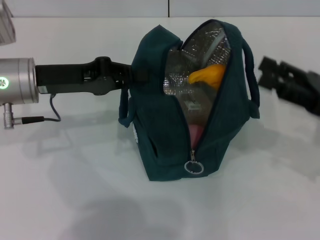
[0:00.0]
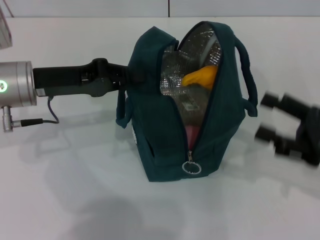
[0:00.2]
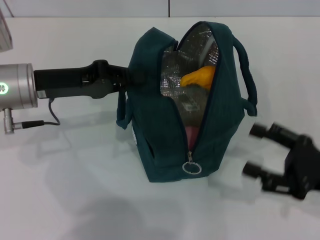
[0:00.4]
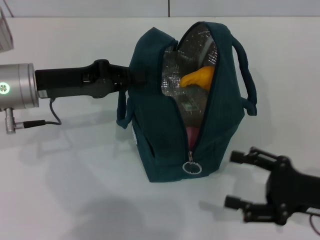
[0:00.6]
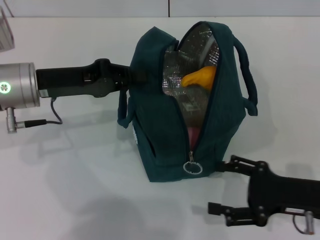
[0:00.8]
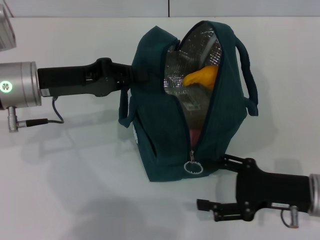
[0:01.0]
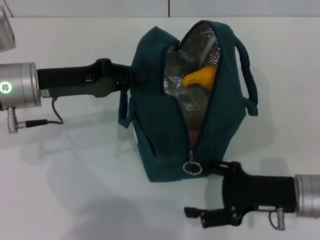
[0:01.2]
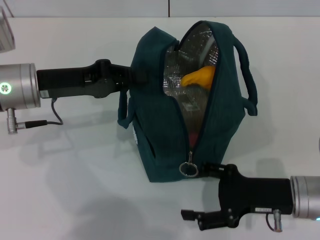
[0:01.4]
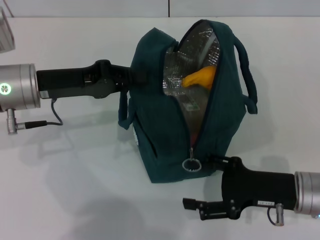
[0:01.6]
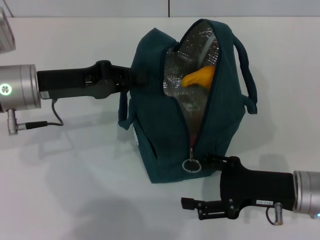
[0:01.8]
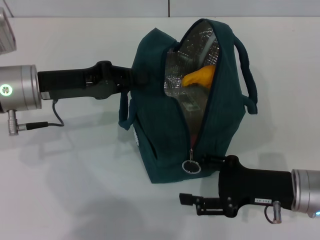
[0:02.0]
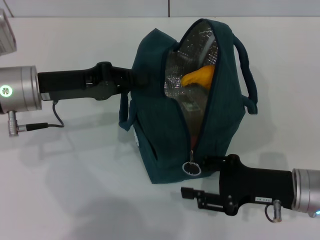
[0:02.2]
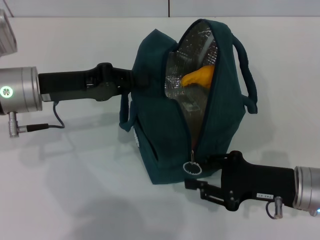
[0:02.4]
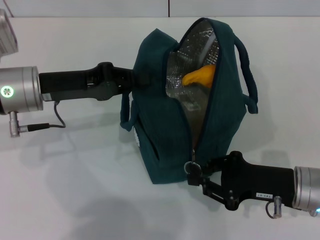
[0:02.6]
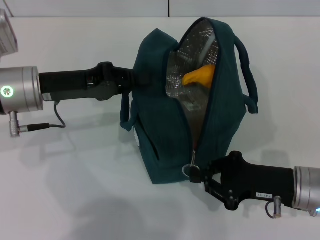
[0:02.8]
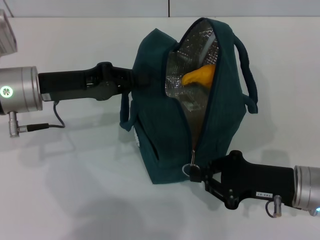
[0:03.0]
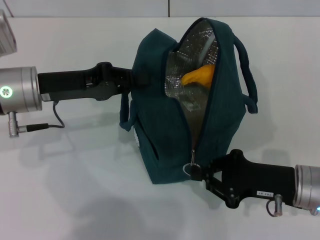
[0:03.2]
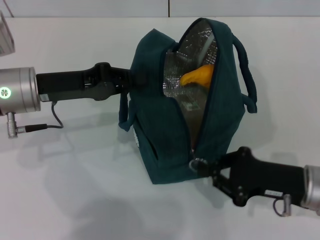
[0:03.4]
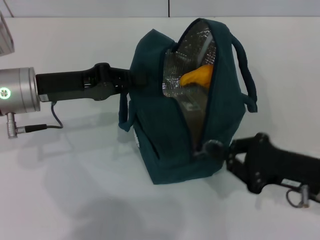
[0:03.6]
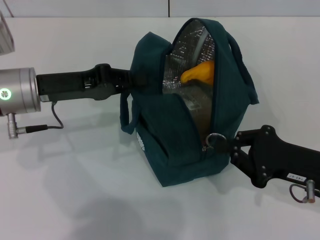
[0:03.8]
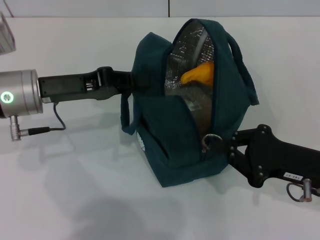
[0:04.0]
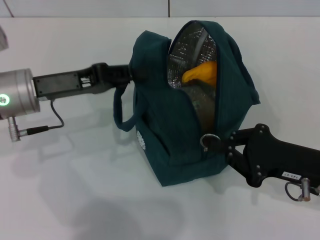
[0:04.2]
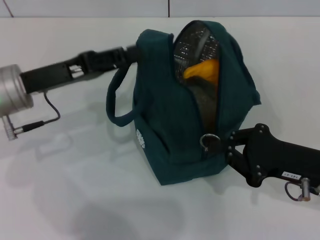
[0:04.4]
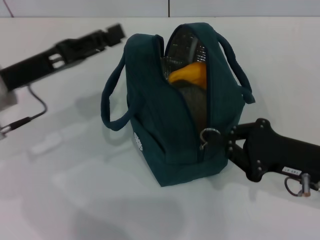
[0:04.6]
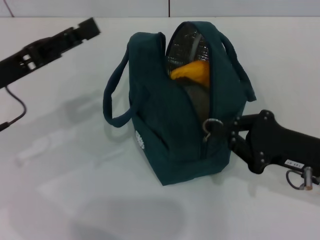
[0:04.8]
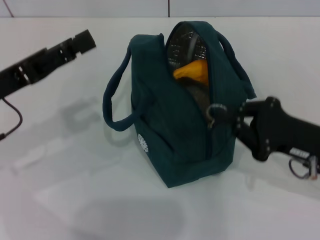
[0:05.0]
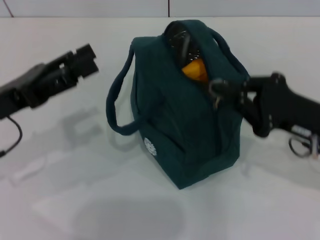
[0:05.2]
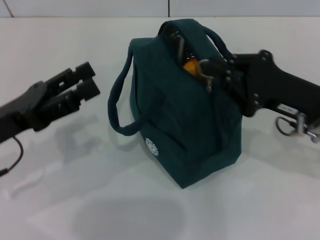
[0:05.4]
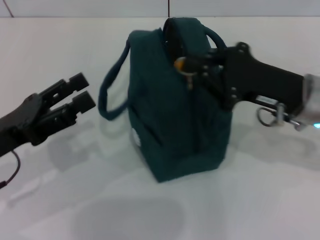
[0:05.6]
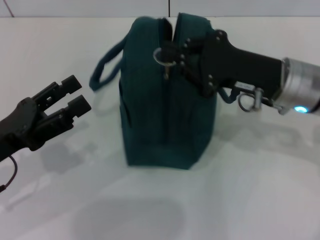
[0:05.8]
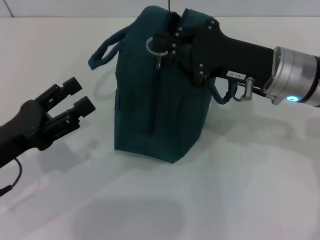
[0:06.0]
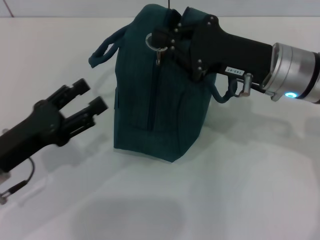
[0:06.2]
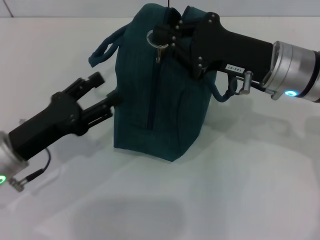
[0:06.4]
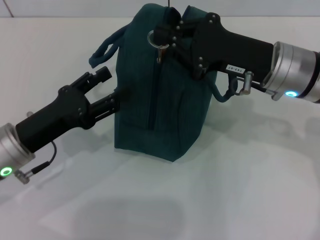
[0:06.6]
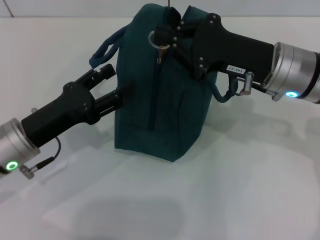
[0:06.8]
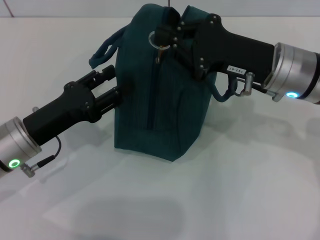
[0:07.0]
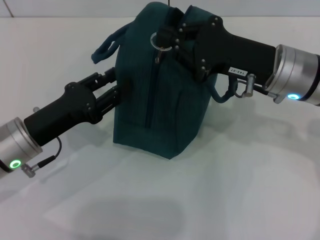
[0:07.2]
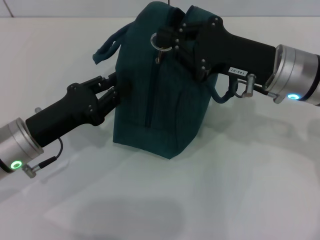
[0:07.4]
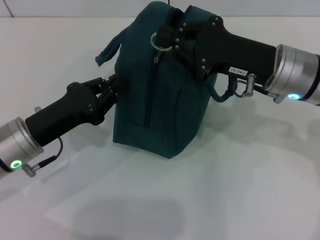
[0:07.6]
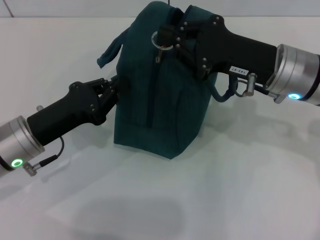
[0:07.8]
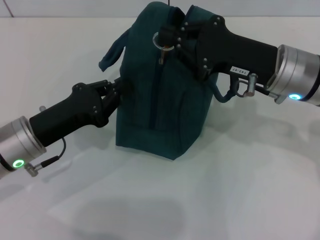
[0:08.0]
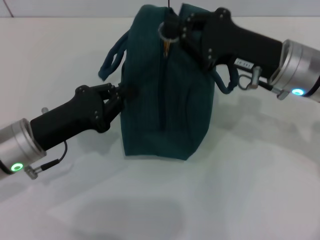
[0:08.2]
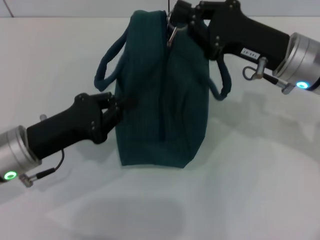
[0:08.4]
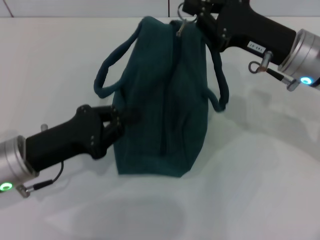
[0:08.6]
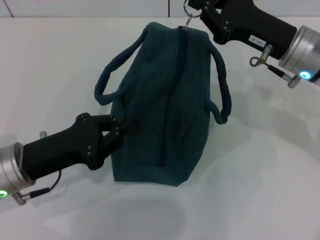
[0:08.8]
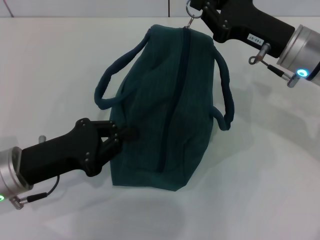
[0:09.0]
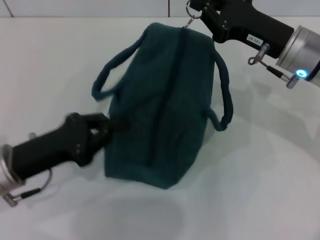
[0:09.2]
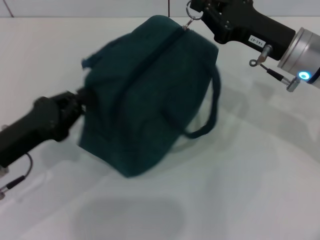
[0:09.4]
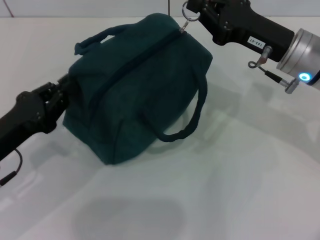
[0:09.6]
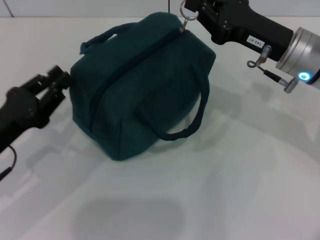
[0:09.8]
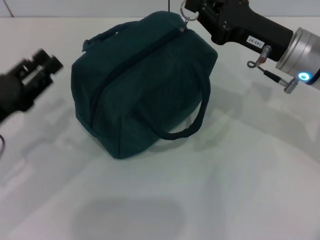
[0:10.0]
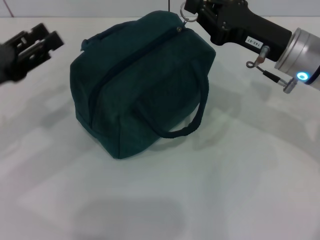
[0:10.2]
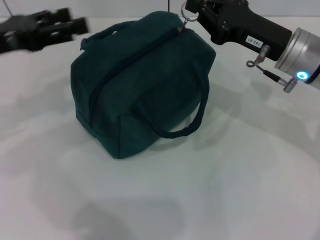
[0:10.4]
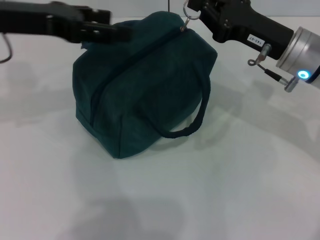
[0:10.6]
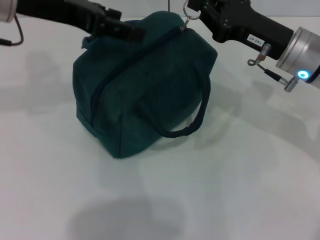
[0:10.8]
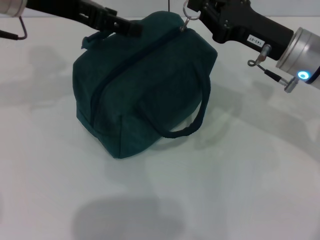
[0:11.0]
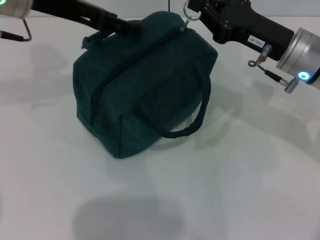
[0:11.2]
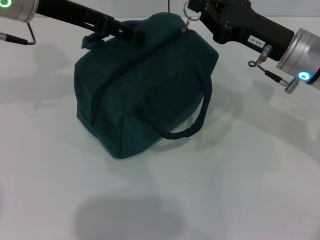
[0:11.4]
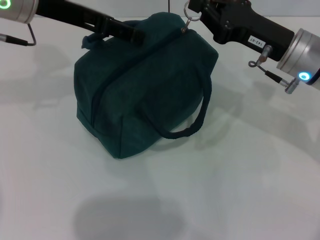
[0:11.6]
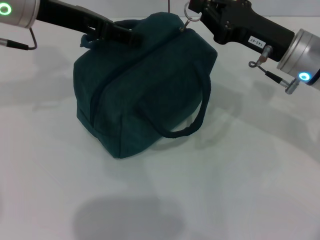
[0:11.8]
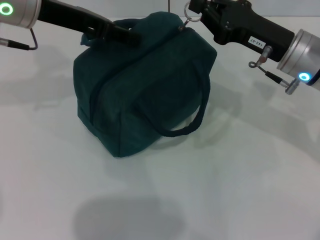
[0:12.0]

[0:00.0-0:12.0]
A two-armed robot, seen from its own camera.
Step, 0:00.0 to 0:04.4: Hold the lunch bag with your left hand.
0:00.0 to 0:01.6: The right gripper moves downward and to the left, about 10 cm.
0:01.6 to 0:03.0: The right gripper closes its fingers.
0:04.4 to 0:06.0: The left gripper shifts approximately 10 cm backward, and opens its fingers, while the right gripper moves forward, upward and to the left, about 15 cm.
0:06.0 to 0:07.6: The left gripper goes roughly 5 cm forward, and closes up.
0:09.0 to 0:10.4: The left gripper travels upward, forward and to the left by roughly 15 cm, and opens its fingers.
0:10.4 to 0:12.0: The left gripper heads to the right, forward and upward, covering some 15 cm.

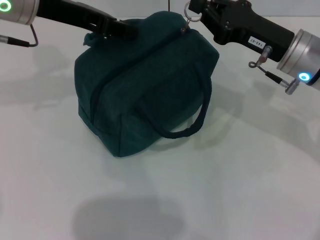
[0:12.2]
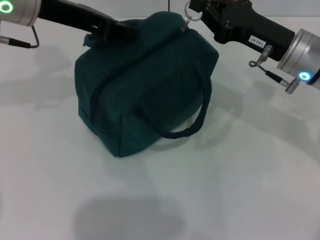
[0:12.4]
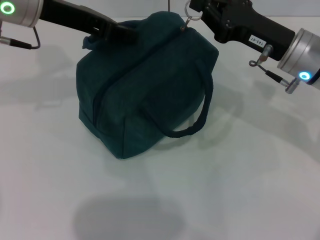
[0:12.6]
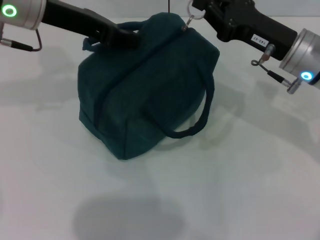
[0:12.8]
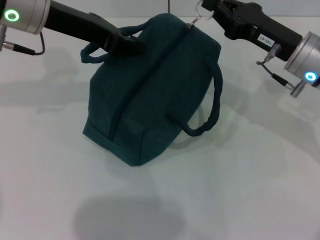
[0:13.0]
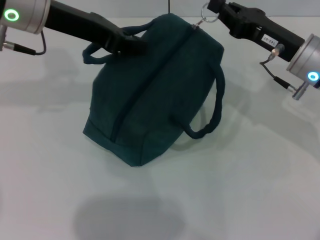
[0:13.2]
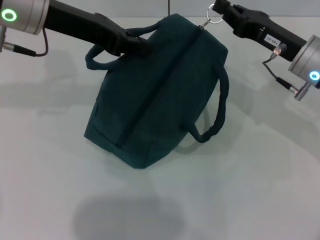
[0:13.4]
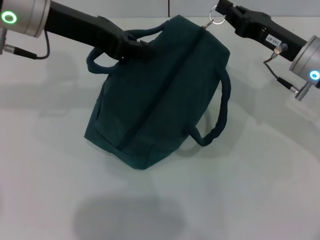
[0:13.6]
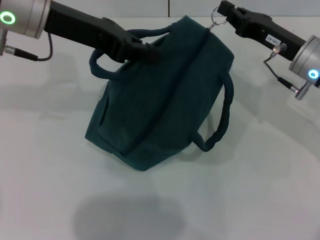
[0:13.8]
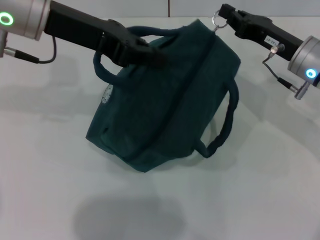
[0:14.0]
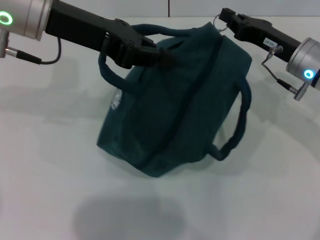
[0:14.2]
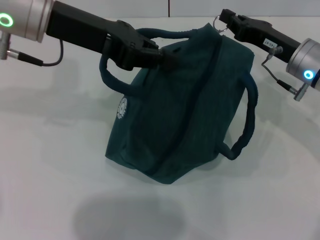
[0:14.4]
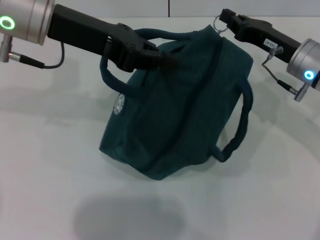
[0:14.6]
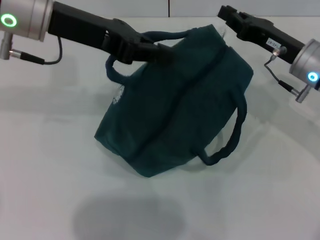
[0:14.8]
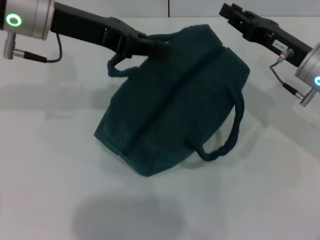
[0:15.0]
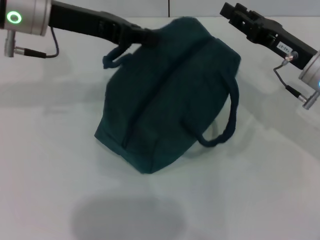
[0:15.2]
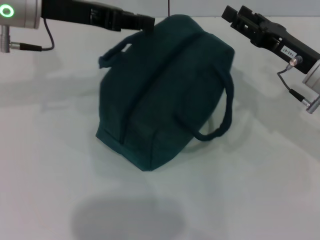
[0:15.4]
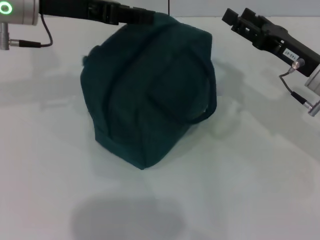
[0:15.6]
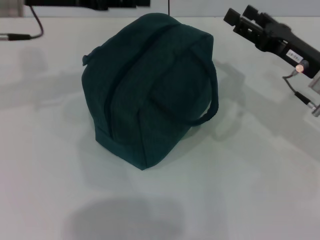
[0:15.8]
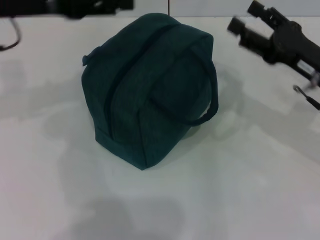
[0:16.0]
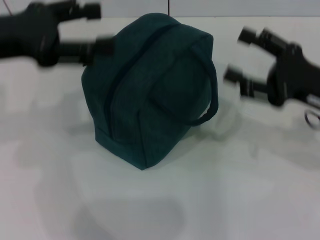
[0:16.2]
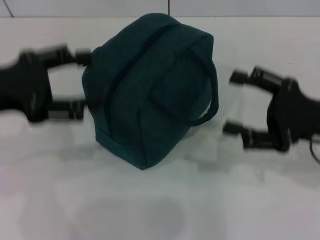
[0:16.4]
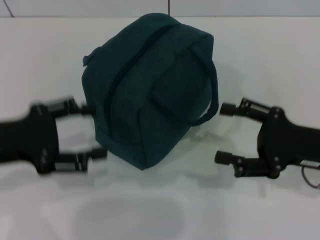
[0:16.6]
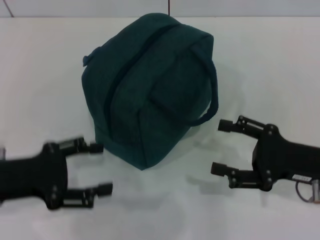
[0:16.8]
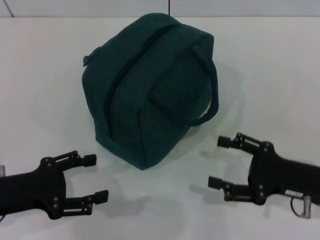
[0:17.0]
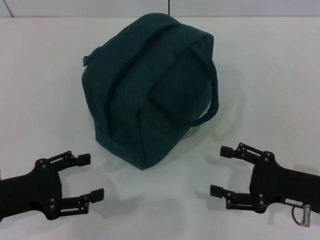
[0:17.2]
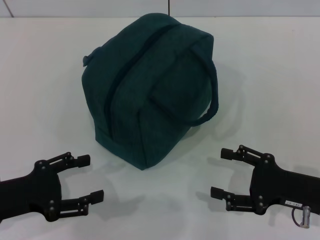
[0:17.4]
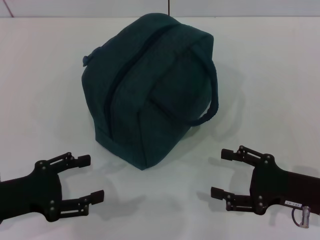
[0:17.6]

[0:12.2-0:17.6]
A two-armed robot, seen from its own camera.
Step, 0:12.2 to 0:14.8: Zip up the lunch bag with your right hand.
Step, 0:15.0 to 0:15.4: Hold the lunch bag with your left hand.
0:12.2 to 0:13.6: The grippers move only a little.
0:13.6 to 0:15.0: The grippers make only small movements.
0:15.0 to 0:16.2: The right gripper is displaced backward by approximately 5 cm, and opens up, while the left gripper is displaced to the left and backward by some 10 cm, and opens.
0:16.2 to 0:17.6: The right gripper moves downward and backward, about 10 cm. Meanwhile the left gripper goes about 20 cm downward and backward.

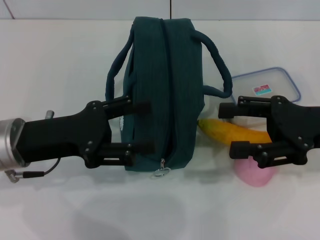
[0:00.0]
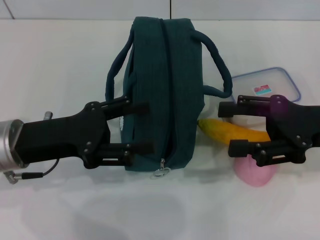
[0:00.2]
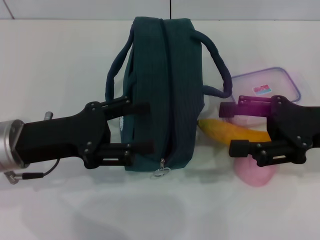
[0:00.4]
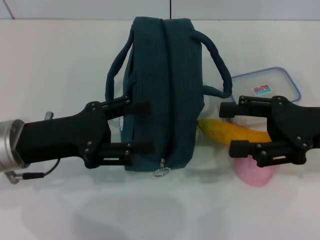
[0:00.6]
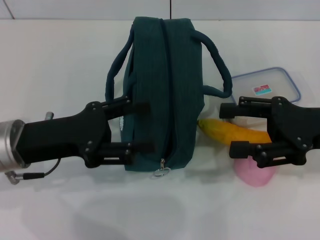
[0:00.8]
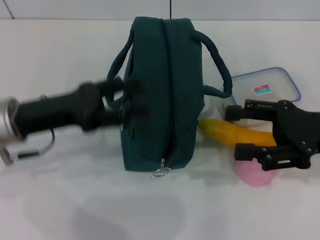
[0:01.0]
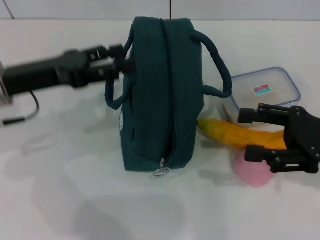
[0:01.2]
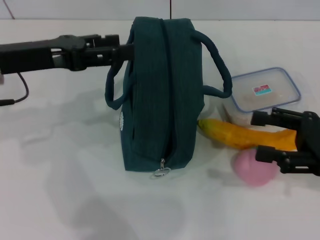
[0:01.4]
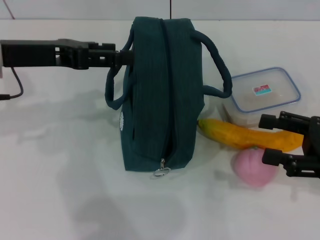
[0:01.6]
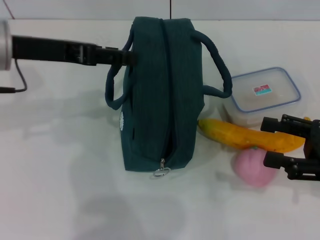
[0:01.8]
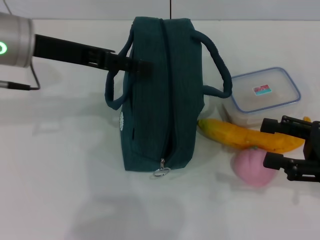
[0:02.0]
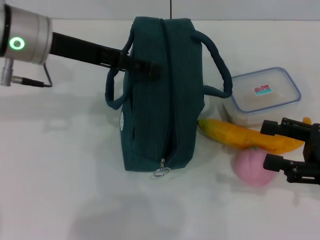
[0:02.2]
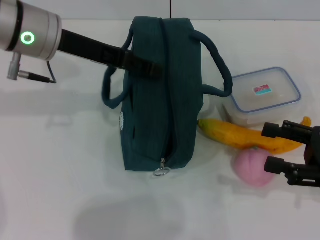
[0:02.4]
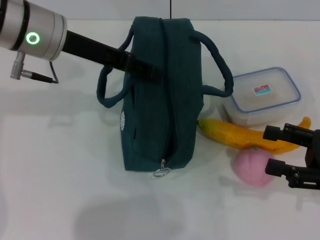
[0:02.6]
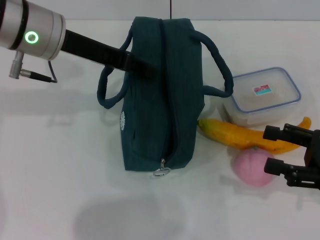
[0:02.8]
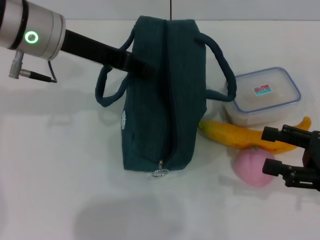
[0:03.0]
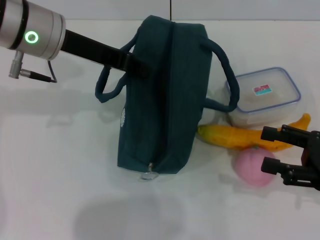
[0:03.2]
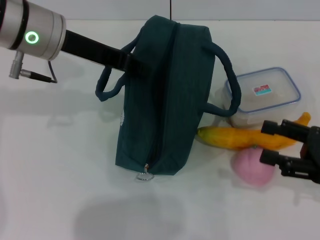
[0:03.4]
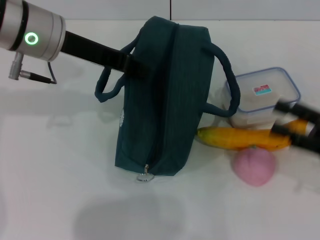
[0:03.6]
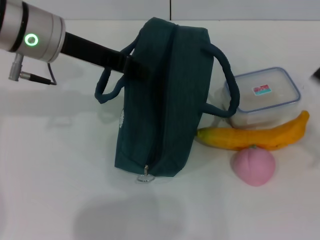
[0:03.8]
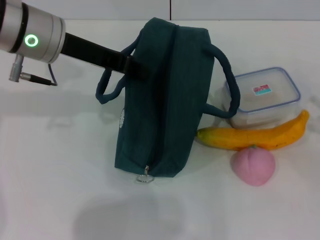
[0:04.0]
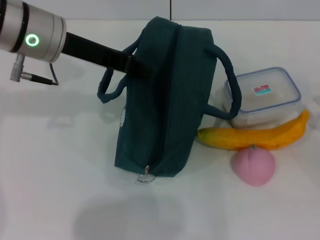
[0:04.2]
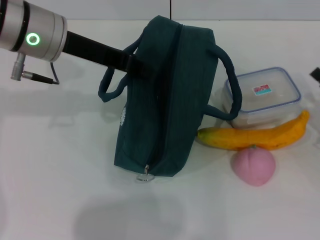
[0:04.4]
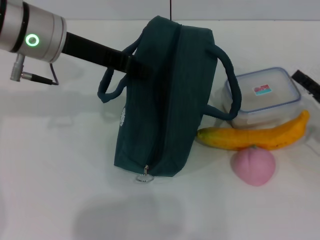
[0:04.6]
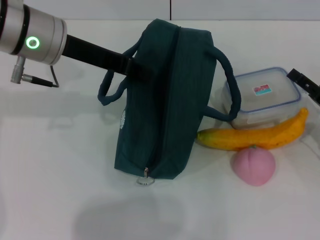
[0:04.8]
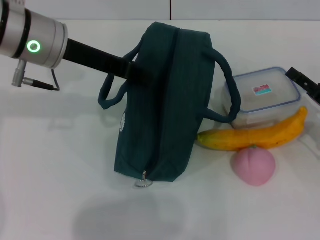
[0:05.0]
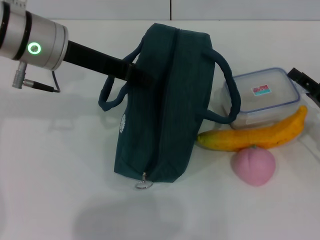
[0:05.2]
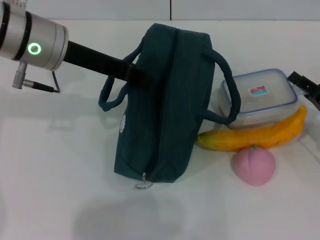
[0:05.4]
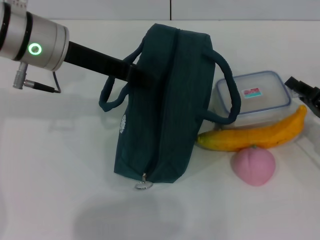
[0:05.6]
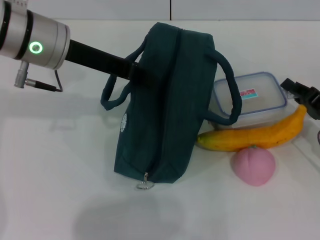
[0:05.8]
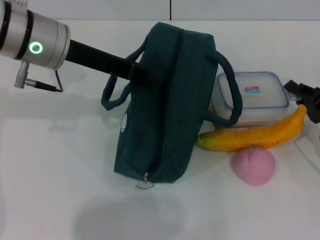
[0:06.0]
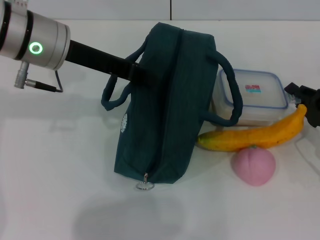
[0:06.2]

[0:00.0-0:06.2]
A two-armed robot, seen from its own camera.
Step, 0:00.0 to 0:03.4: Hold the lunch bag with your left hand.
Step, 0:03.6 to 0:05.8: Pick up the lunch box with your right hand.
0:00.0 to 0:01.6: The right gripper heads to the right, covering approximately 5 cm, while the left gripper goes approximately 10 cm upward and forward.
0:01.6 to 0:03.2: The left gripper shifts approximately 5 cm to the right, and closes.
0:03.2 to 0:04.6: The right gripper heads downward and forward, covering about 10 cm.
0:04.6 to 0:06.2: The right gripper closes its fingers.
